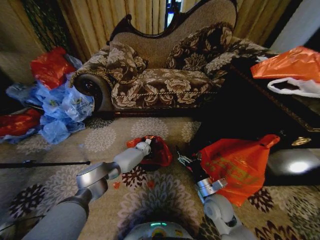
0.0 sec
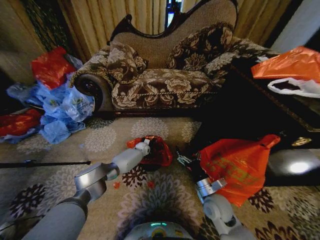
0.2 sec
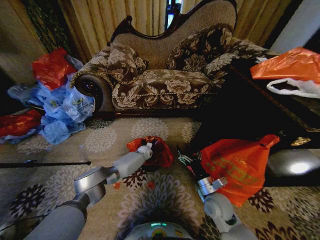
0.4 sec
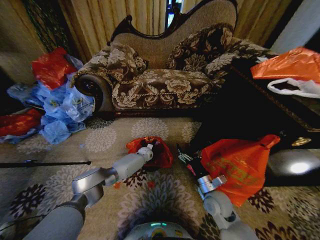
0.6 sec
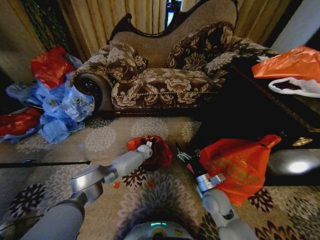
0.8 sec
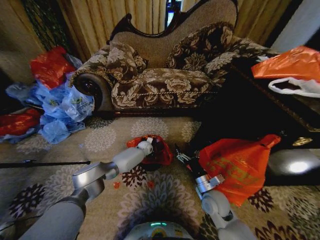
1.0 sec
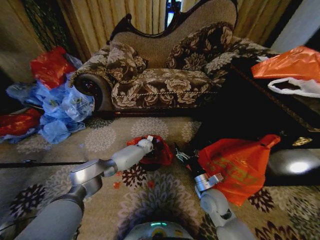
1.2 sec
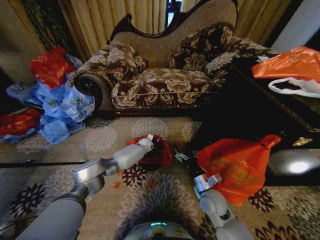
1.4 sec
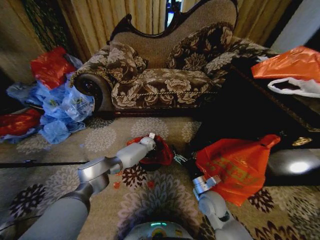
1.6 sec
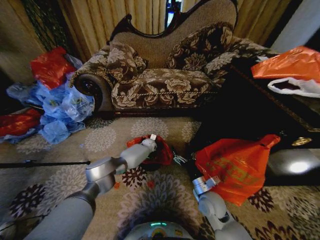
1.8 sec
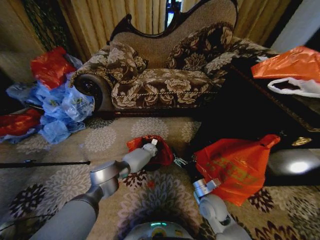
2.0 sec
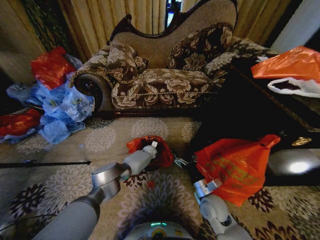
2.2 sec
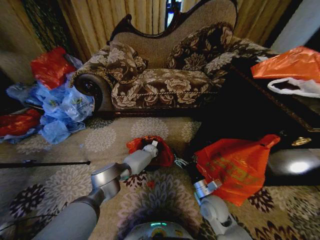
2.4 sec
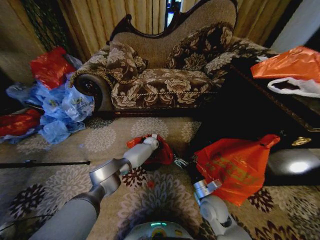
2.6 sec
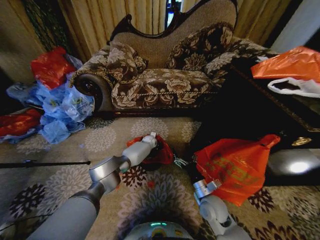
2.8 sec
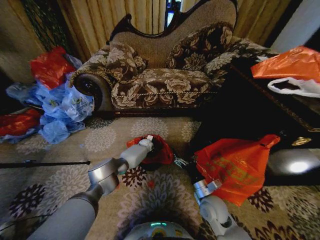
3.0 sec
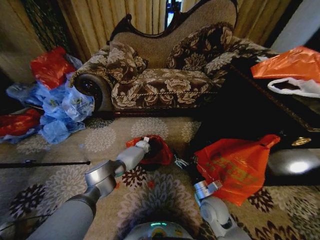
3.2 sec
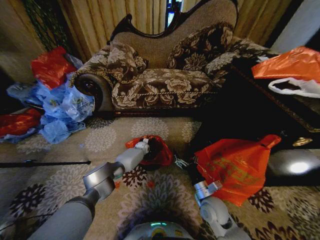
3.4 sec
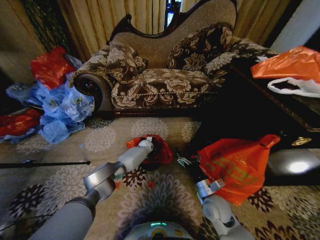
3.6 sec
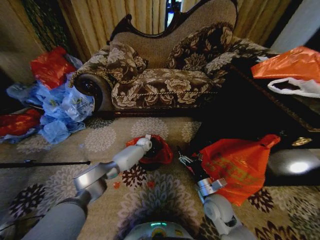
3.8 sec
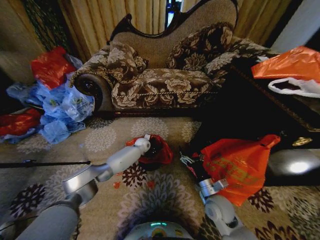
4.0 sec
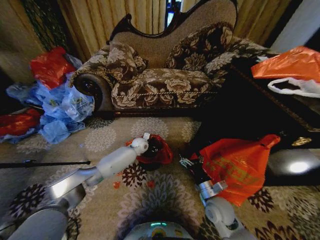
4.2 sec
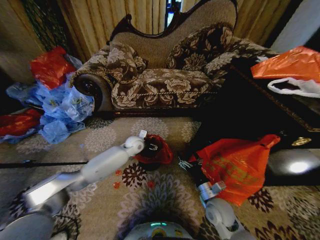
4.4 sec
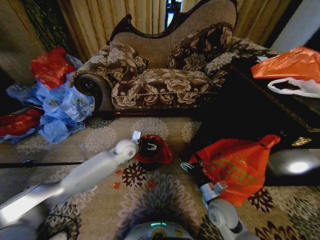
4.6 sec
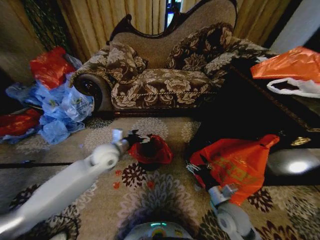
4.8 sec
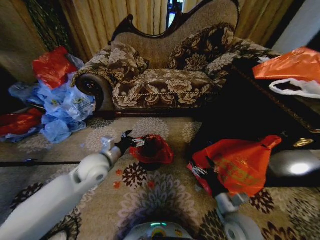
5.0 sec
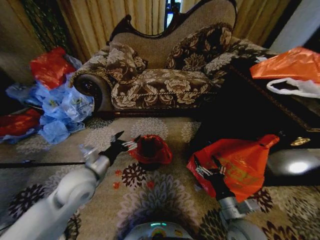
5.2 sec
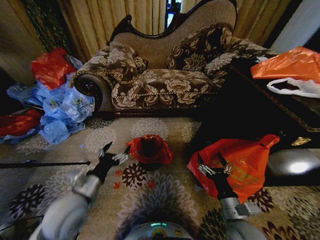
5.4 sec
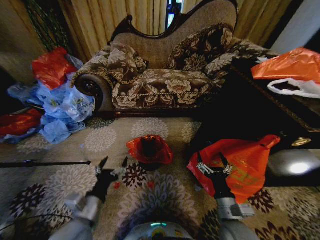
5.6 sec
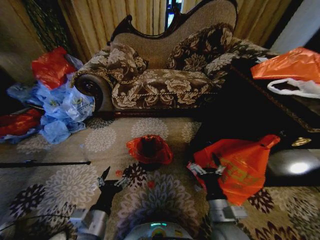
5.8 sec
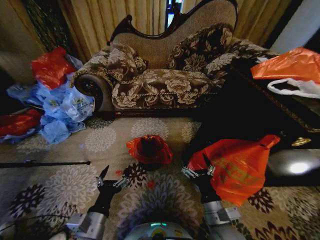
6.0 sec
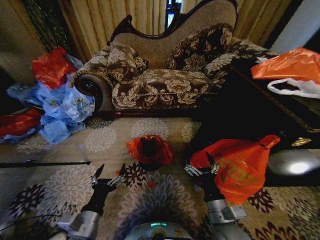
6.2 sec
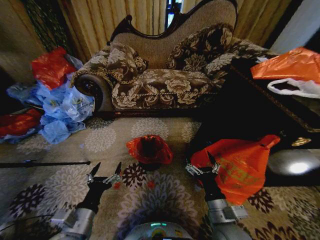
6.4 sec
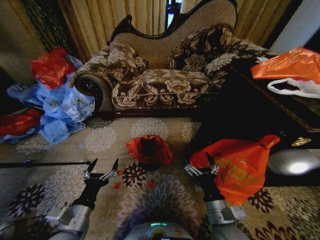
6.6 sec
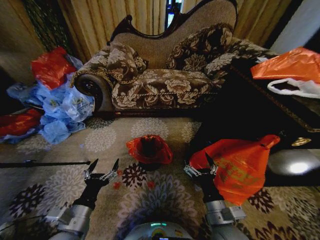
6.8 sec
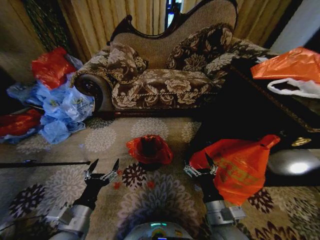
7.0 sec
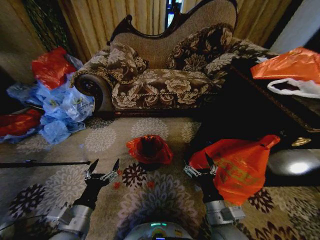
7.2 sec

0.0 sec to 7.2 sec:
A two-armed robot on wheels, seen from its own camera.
Task of the whole recording: Place a garbage bag over the trash bin.
0.0 sec to 1.4 sec: The grippers stay close to where they were, moving slightly.
2.8 sec to 4.4 sec: The left gripper moves backward, upward and to the left, approximately 15 cm, and opens up.
4.4 sec to 5.8 sec: The left gripper moves backward, some 40 cm. The right gripper goes approximately 10 cm backward and upward.
5.8 sec to 7.2 sec: The grippers stay close to where they were, moving slightly.
